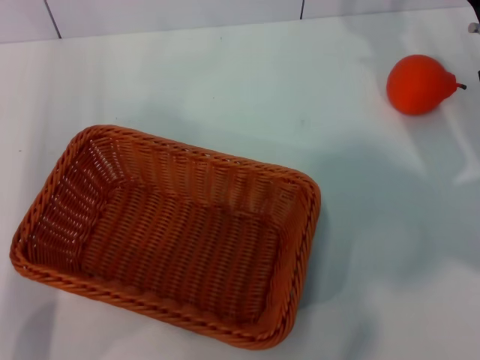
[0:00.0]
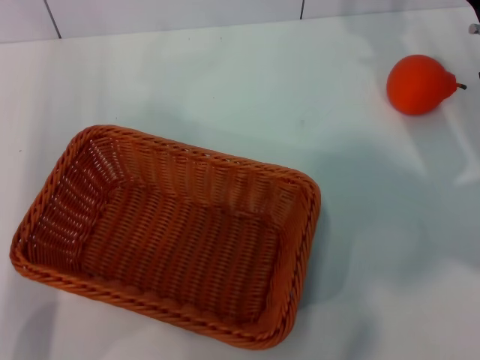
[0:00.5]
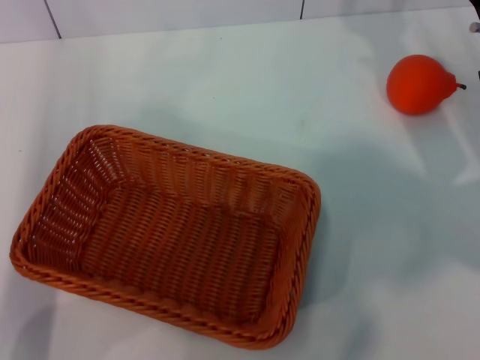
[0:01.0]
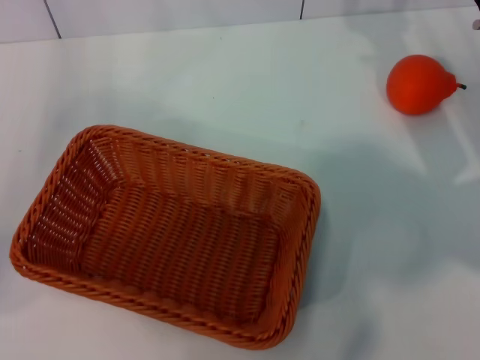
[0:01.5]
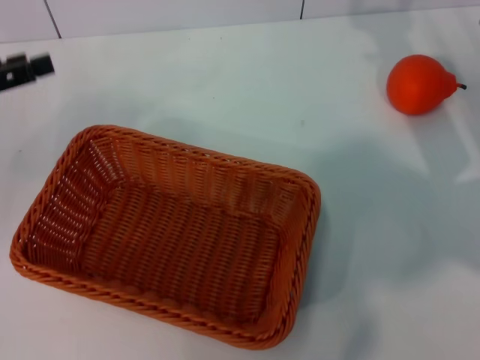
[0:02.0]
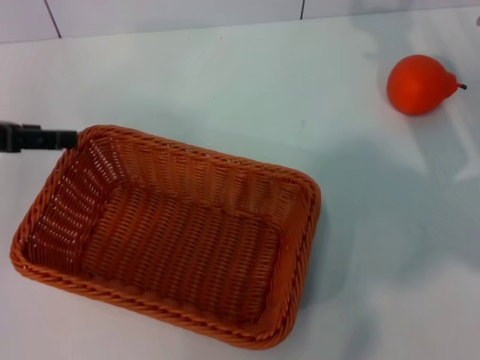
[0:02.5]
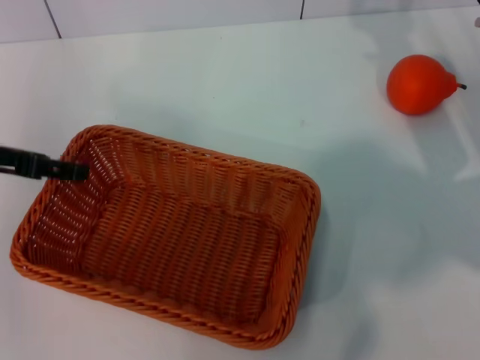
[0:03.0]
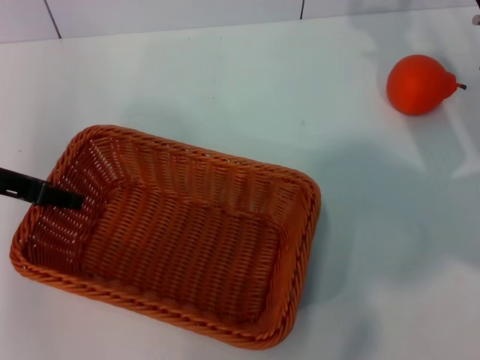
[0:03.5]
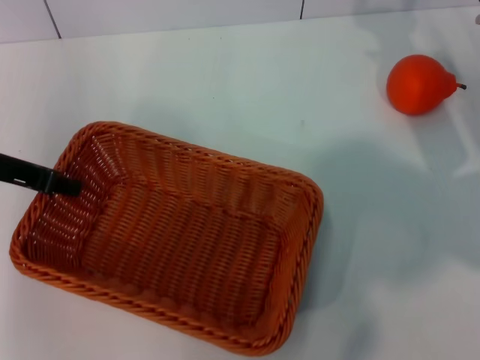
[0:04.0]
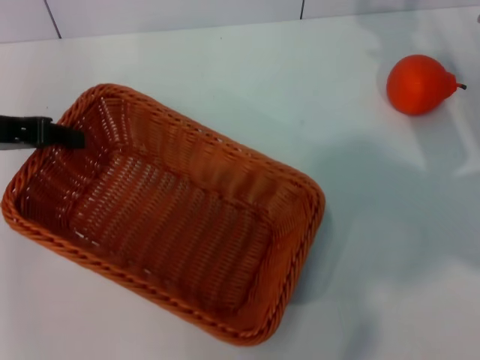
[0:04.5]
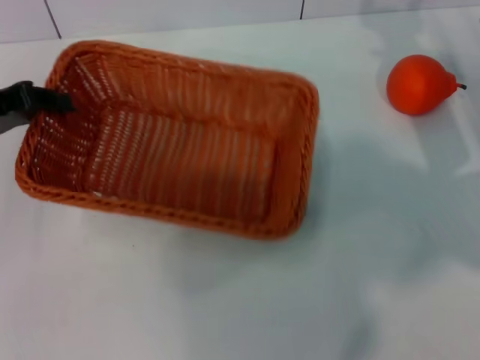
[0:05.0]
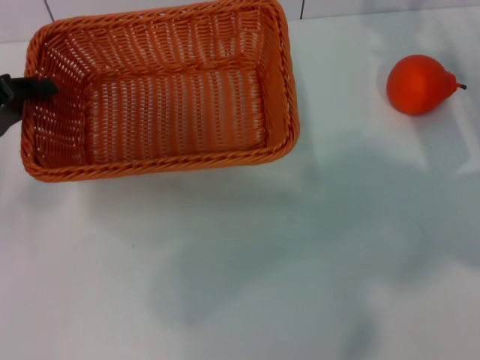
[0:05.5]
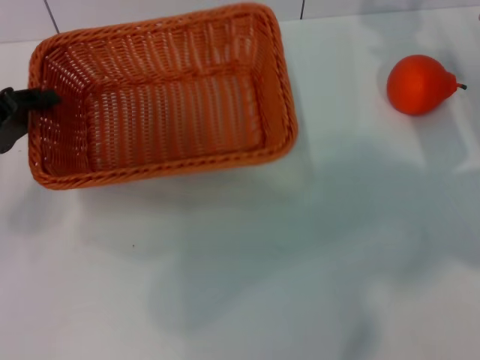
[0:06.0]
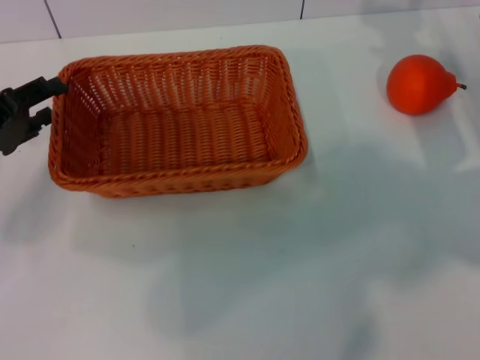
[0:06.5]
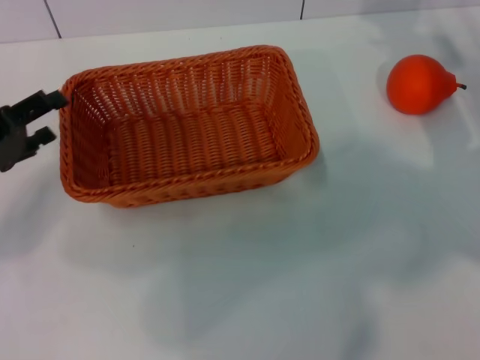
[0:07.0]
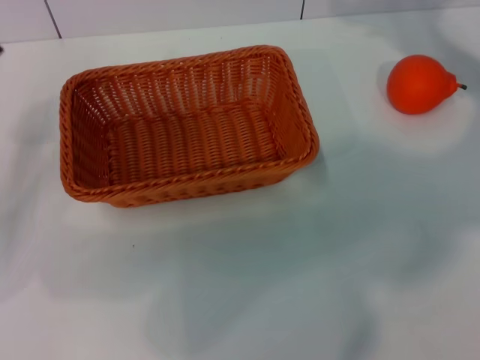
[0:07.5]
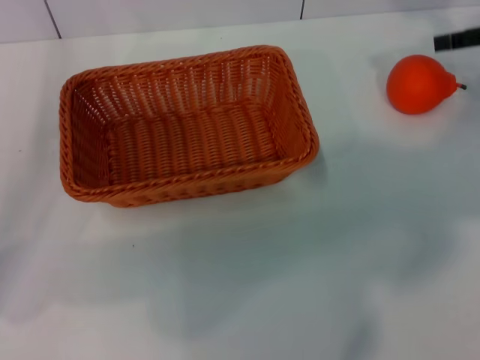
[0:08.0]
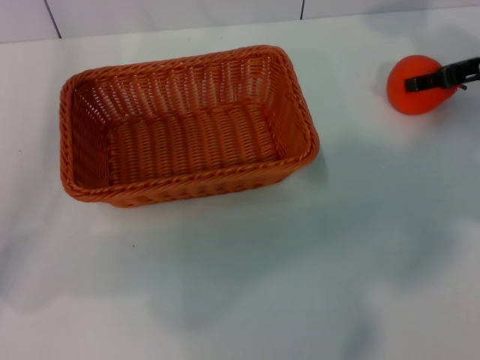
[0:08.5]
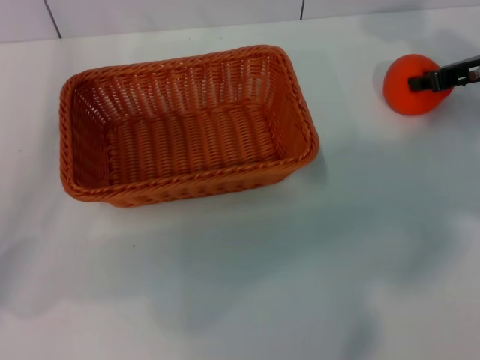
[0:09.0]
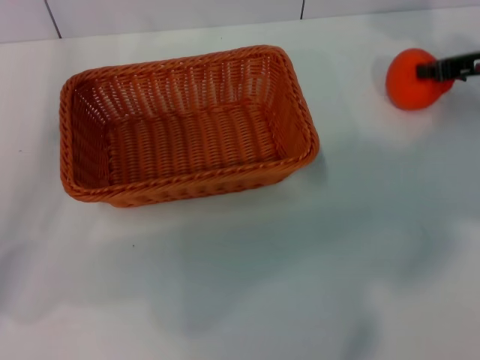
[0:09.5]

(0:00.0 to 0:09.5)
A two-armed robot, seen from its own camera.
Task of the whole recording: the left gripper pick up the yellow basket and place it horizontally in the middle of the table, the right gripper pick up the orange and place it into the yellow basket.
Step, 0:00.0 - 0:04.5: Pick up the light basket with the left gripper.
Step, 0:05.0 - 0:07.0: Place the light basket in the center of view with the left gripper.
0:00.0 - 0:02.0: The left gripper heads to the left, upward and forward, covering approximately 15 cm.
0:02.0 - 0:04.0: The left gripper heads to the right, covering about 5 cm, and closes its fingers.
0:04.0 - 0:05.5: The left gripper ends up about 5 cm from where it was.
0:05.5 - 0:07.5: The right gripper shifts roughly 5 cm upward. Meanwhile the left gripper opens.
0:07.5 - 0:09.5: The right gripper closes up.

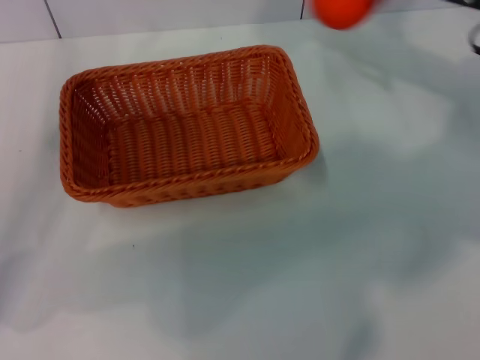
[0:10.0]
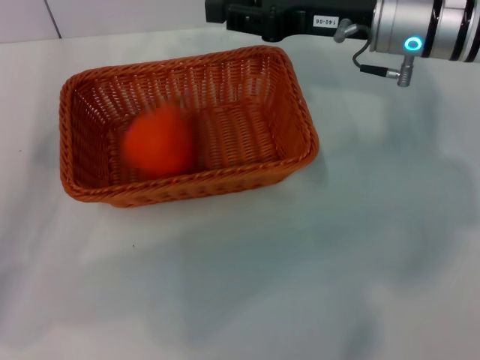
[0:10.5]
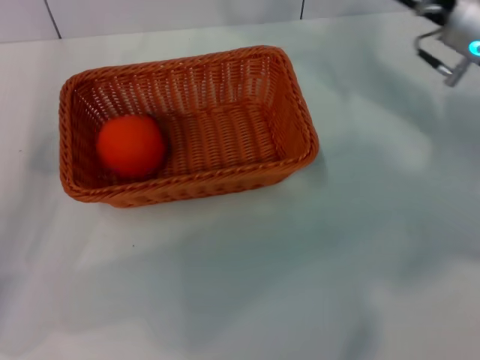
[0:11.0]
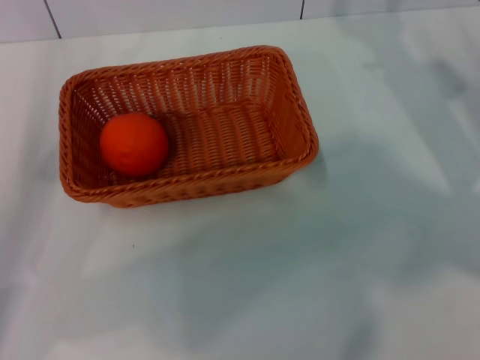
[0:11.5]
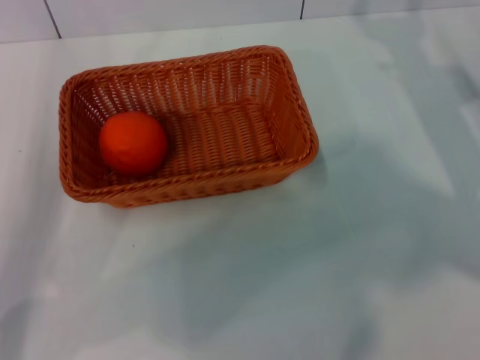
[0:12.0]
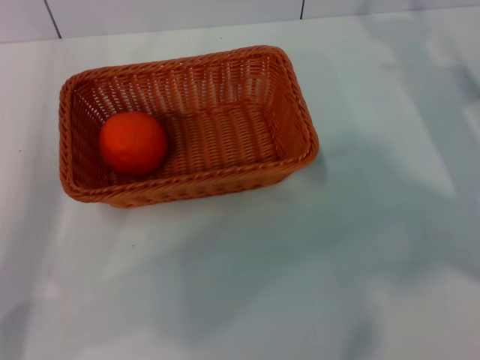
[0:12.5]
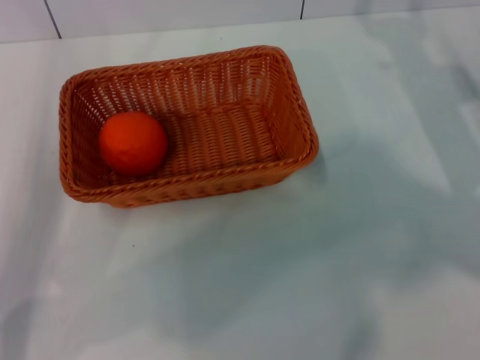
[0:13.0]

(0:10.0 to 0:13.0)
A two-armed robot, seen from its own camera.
Task of the whole recording: the left gripper pick up the yellow basket and place it horizontally in the middle of the table, the right gripper pick up the orange and place it into the yellow basket.
Step, 0:10.0 - 0:10.5: Place the orange into the light basket with the right gripper.
0:10.0 - 0:11.5: The right gripper travels downward by roughly 5 cm, goes to the left and returns, some 10 cm each way, and opens.
